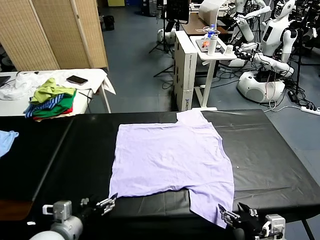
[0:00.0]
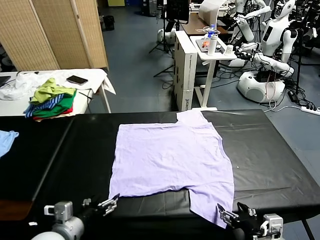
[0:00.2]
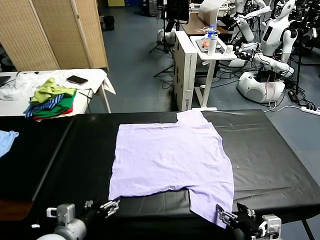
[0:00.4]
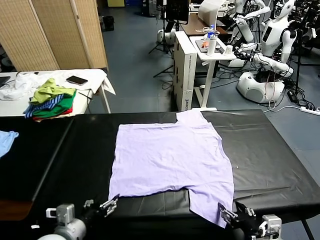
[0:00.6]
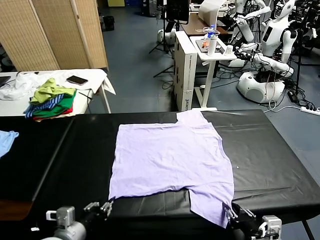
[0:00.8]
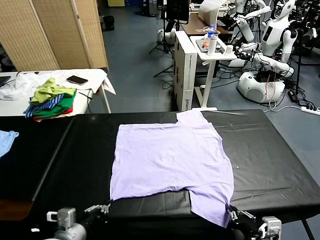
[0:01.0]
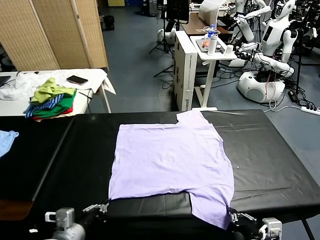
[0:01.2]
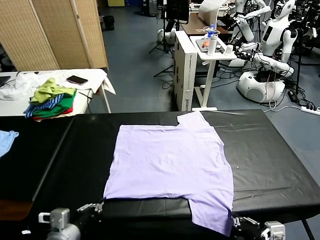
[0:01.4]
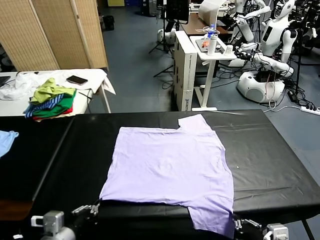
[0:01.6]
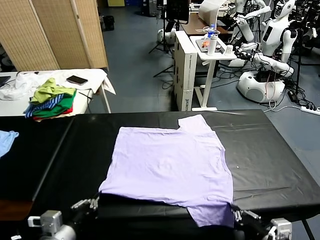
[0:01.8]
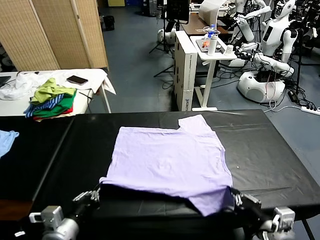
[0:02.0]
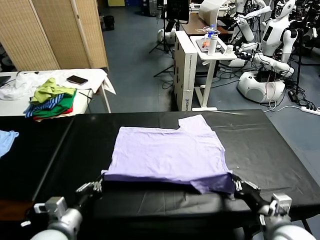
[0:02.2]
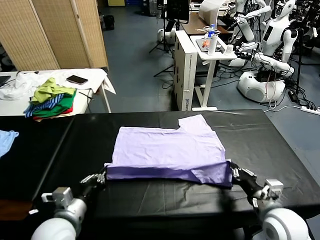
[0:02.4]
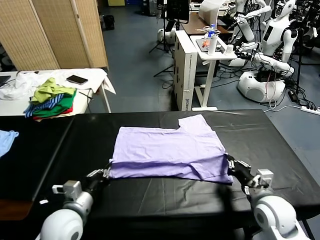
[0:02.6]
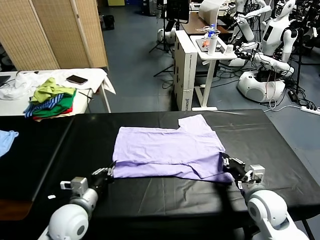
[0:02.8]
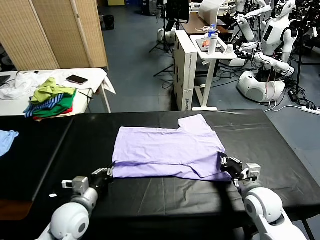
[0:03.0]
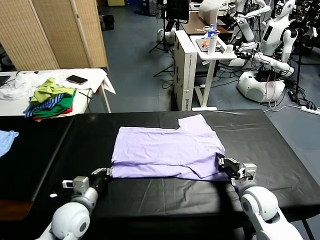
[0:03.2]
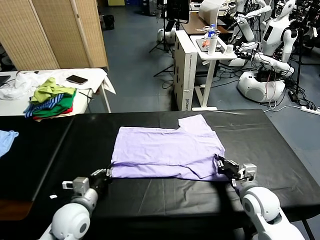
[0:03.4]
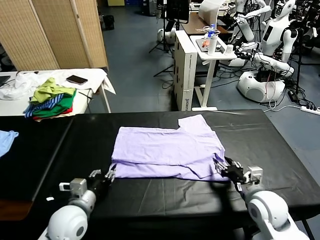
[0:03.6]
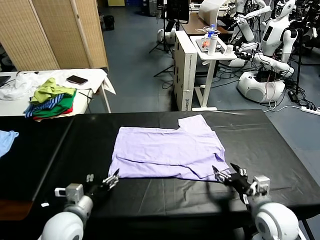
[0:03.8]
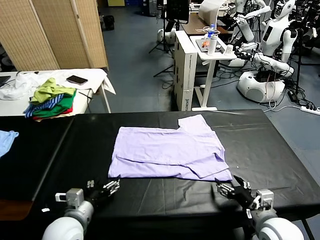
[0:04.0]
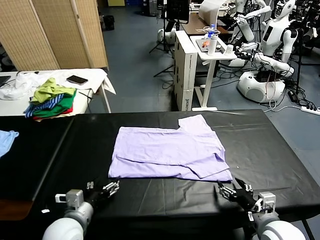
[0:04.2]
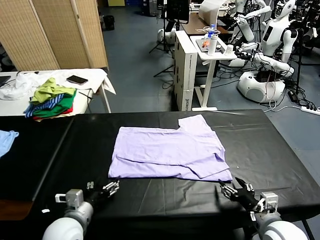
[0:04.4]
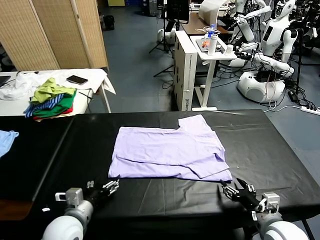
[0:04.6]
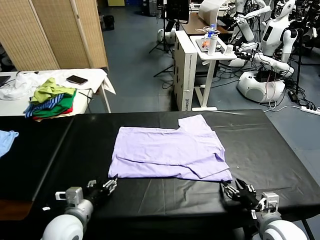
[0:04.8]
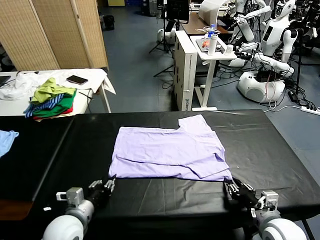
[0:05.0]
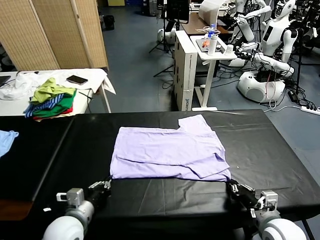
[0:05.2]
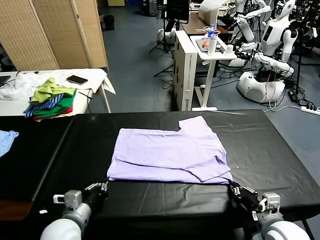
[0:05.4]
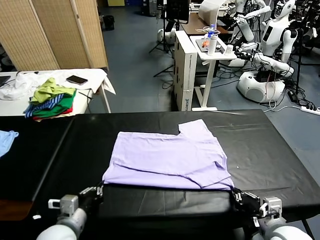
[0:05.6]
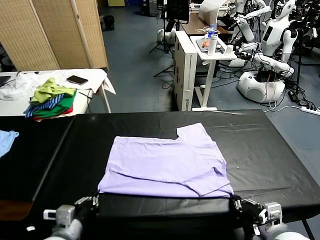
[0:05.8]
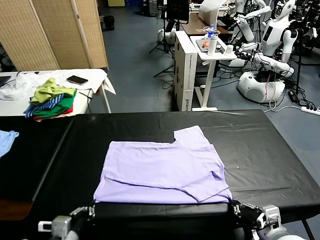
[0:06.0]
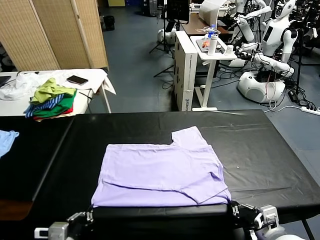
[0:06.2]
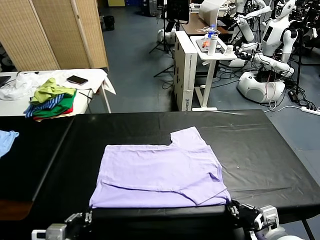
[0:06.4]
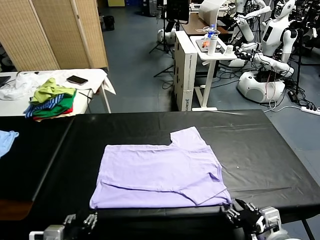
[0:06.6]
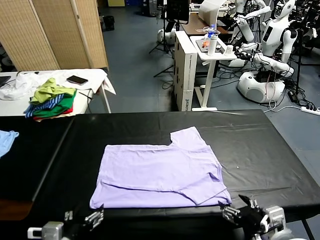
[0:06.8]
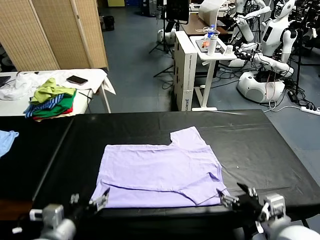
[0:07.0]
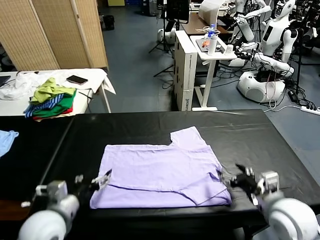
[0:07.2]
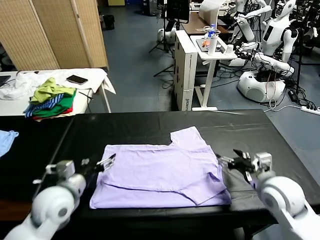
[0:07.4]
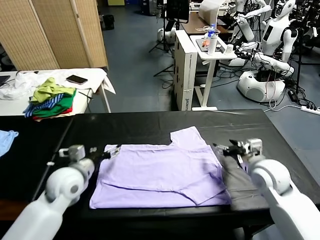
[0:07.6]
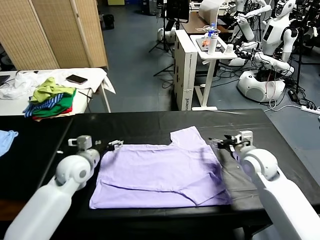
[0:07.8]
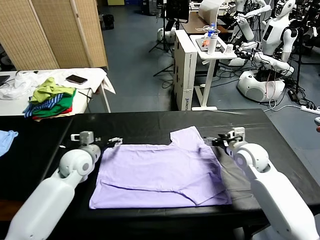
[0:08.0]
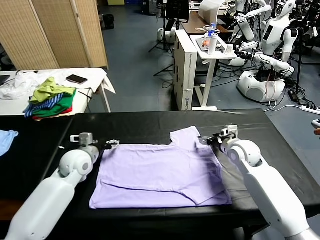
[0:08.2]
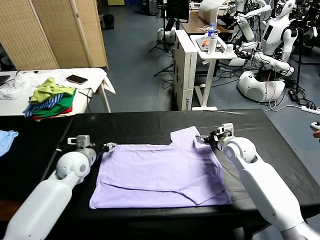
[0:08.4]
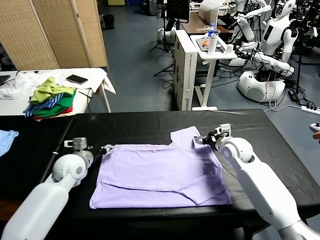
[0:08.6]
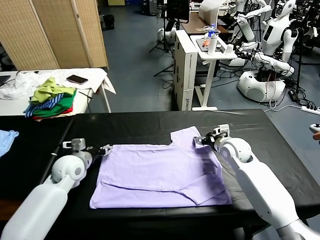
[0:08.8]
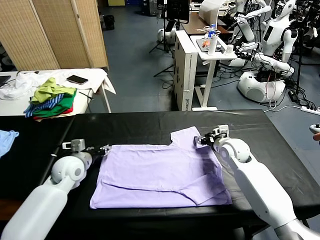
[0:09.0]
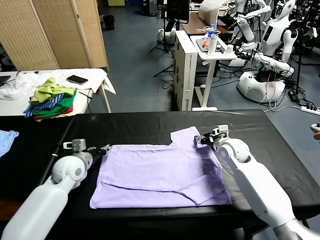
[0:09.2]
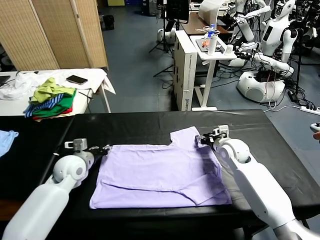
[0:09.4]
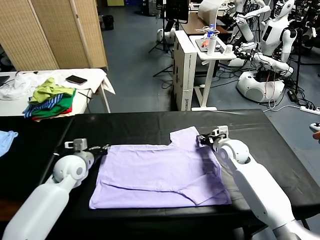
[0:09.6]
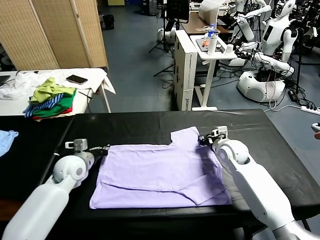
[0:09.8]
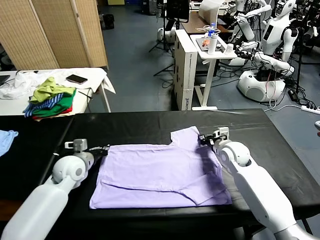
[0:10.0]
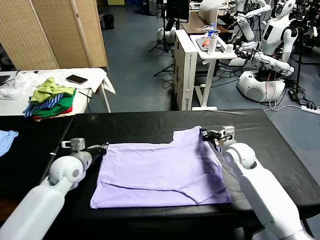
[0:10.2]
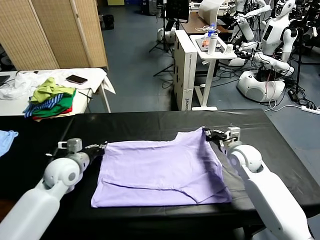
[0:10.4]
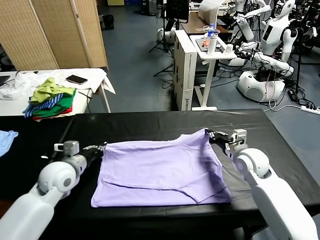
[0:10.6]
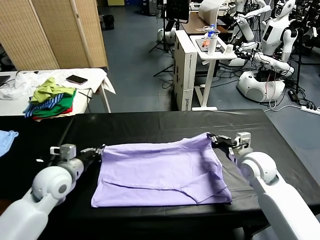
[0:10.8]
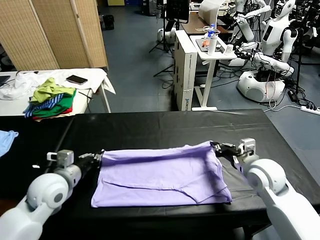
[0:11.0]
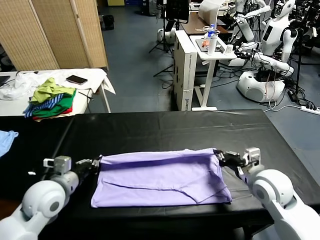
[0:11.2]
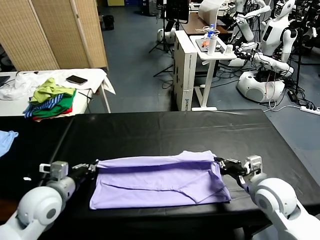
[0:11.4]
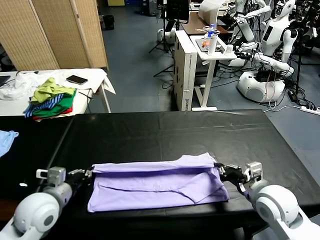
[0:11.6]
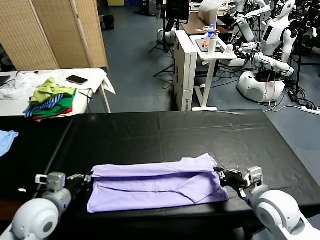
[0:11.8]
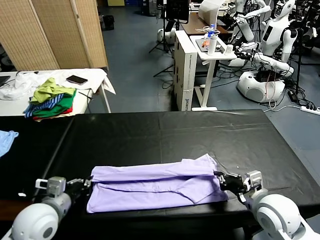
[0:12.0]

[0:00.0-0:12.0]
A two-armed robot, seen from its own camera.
Task of the whole recording: fold and organize the clothes.
Step, 0.0 to 1.2 s: use both grippers simultaneously to clamp the lower edge of the clothing fabric.
Step, 1.4 to 3.6 s: use both grippers to drag the lower edge of the fabric forward and fold it over the upper edge.
Step, 3.8 to 6.6 s: Drag the clothes downward with both gripper.
Step, 6.8 to 10.0 s: use both grippers simultaneously to clamp the upper edge of the clothing fabric.
1.6 to 3.0 s: The left gripper travels forward and downward by about 15 cm, while the right gripper is displaced forward by about 20 cm.
3.0 to 4.4 s: The right gripper goes roughly 10 cm backward, and opens, while the left gripper opens its fingers.
4.4 to 6.0 s: The right gripper shifts by approximately 5 cm, and closes up, while the left gripper is displaced backward by about 10 cm, and closes up.
6.0 to 7.6 s: Both grippers move forward, some 25 cm. The right gripper opens, while the left gripper opens its fingers.
7.6 to 9.0 s: The right gripper goes roughly 10 cm forward and downward. Meanwhile the left gripper changes place by roughly 5 cm.
9.0 to 10.4 s: The right gripper moves backward, some 5 cm, and closes its fingers. Meanwhile the left gripper ends up approximately 5 cm from where it was, and closes up.
10.4 to 12.0 s: The grippers both shift backward by about 15 cm.

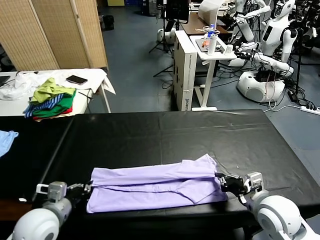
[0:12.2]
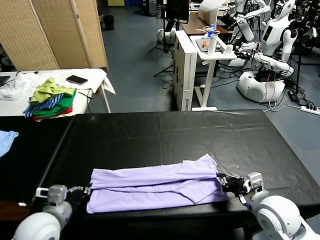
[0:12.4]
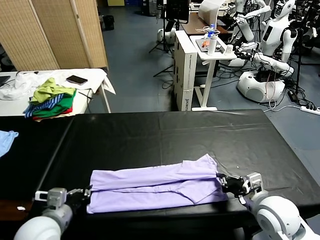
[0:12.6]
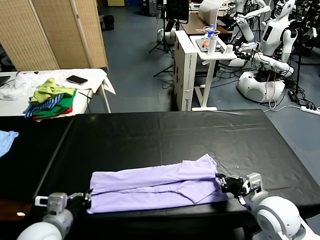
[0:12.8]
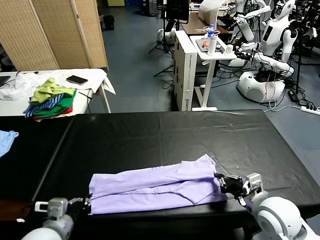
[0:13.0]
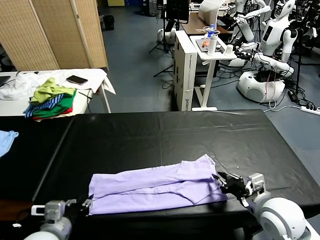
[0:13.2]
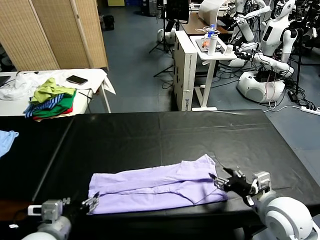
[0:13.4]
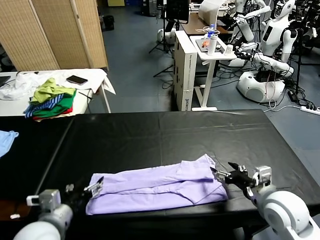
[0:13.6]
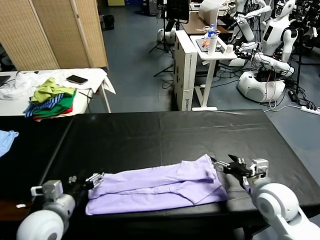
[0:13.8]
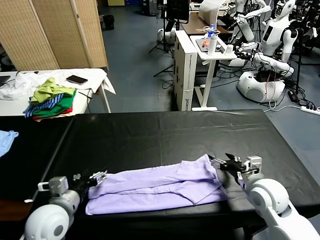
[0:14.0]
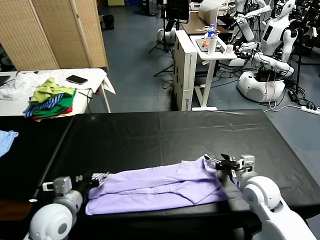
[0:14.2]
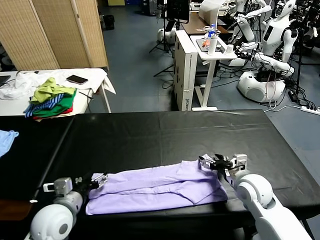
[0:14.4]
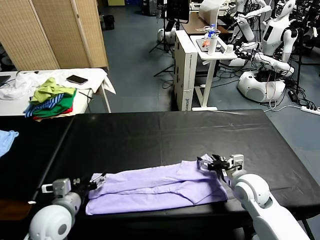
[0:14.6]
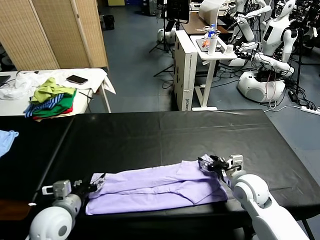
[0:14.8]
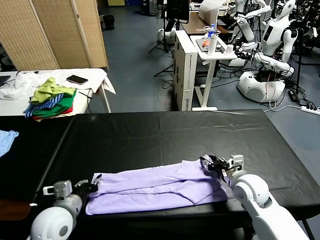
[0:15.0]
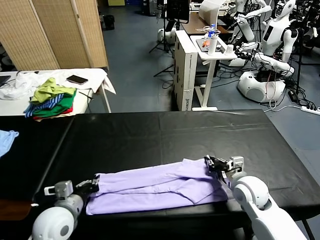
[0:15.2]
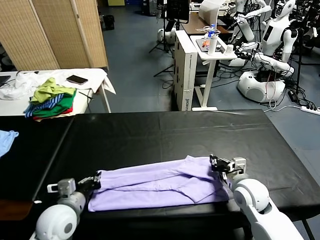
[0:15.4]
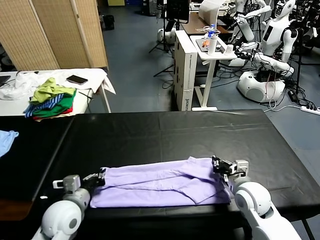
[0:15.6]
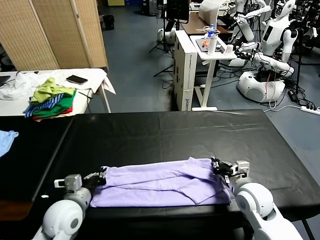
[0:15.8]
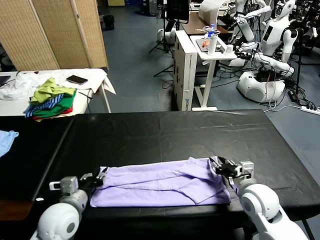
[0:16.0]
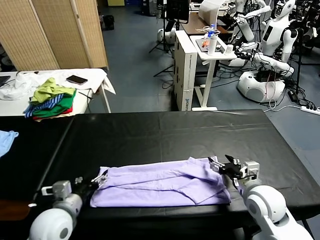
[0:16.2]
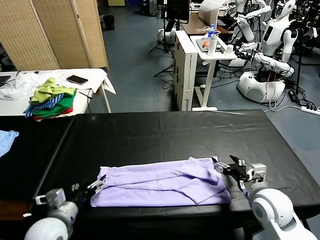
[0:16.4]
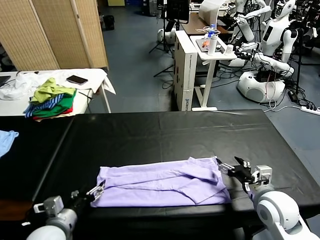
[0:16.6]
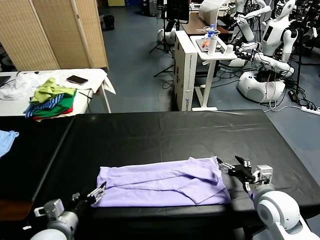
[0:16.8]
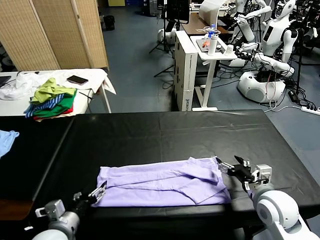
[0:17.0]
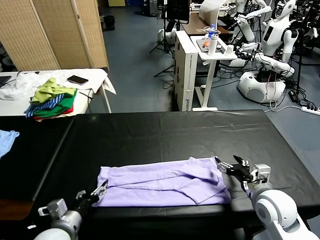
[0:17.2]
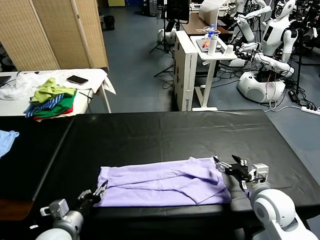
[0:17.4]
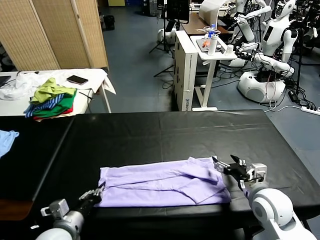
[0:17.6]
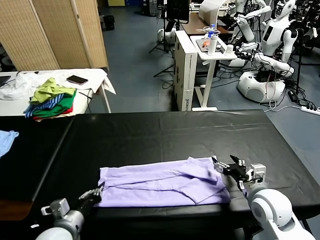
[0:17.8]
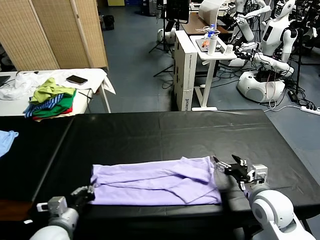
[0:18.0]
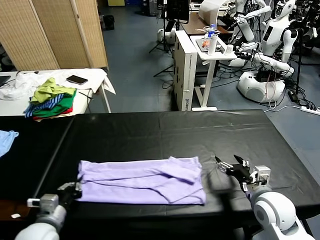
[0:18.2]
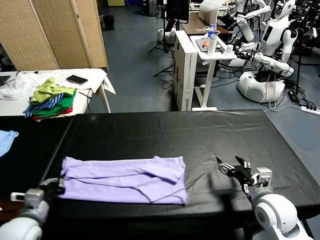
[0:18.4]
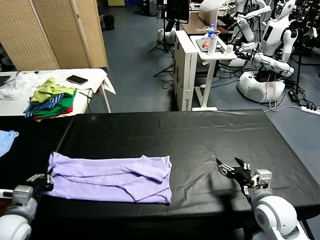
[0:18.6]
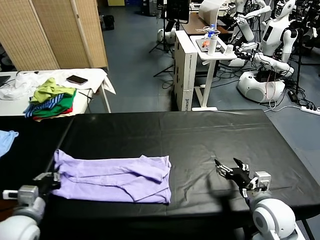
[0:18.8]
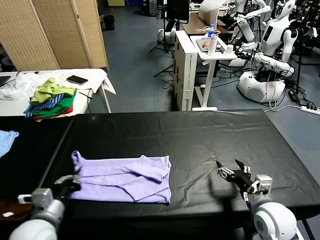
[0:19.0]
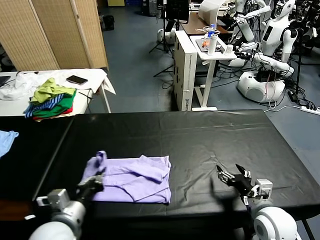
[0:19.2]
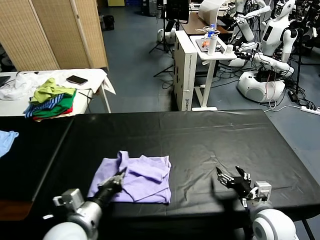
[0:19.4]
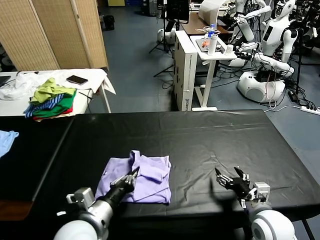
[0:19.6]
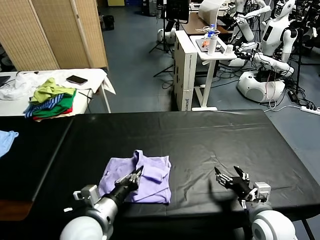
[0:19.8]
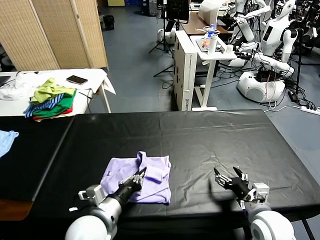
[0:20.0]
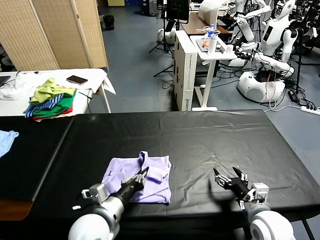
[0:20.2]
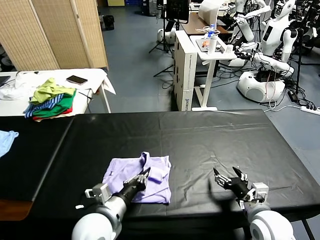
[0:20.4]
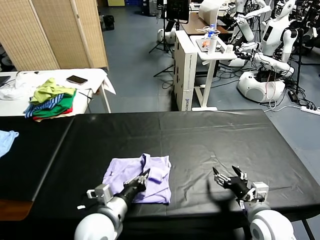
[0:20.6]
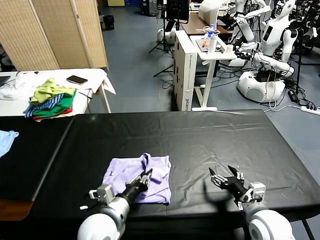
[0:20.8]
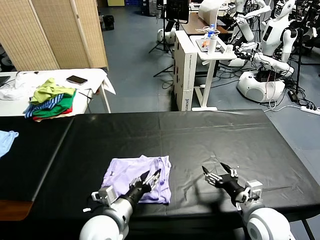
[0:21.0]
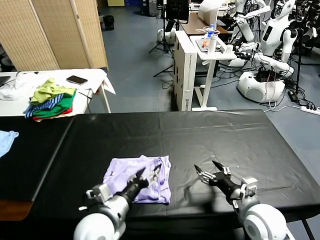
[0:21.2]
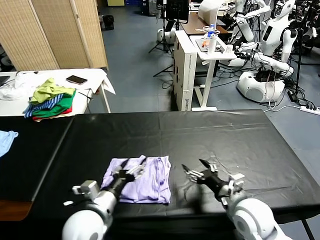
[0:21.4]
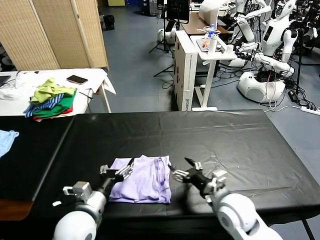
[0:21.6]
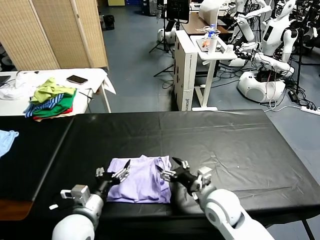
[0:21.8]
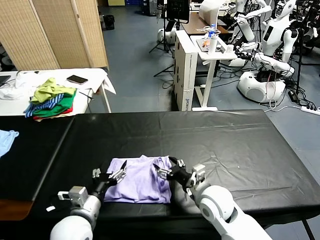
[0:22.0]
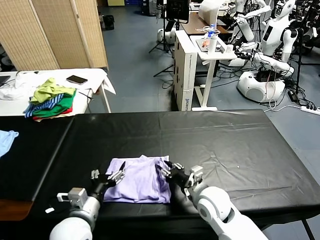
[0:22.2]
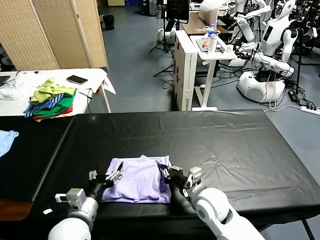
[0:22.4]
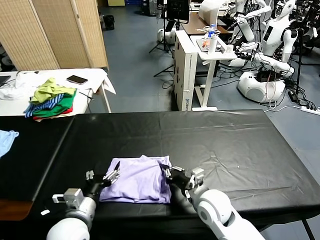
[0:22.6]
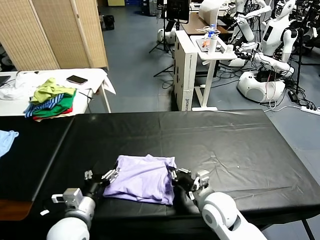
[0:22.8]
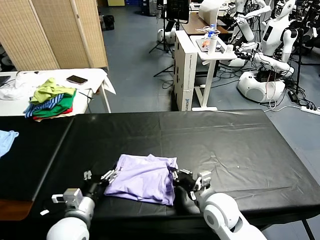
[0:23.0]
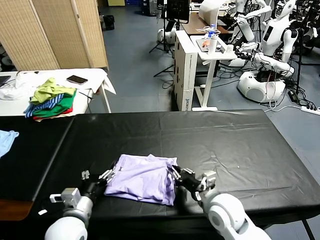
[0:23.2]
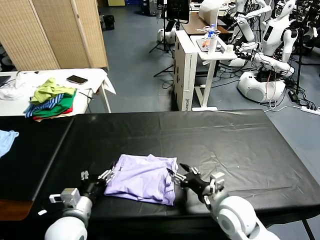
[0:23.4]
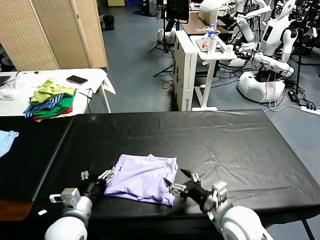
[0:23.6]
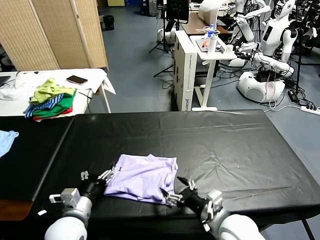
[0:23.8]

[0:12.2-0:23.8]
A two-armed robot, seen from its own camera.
Task of the whole recording: fold and organize the clothes.
Step, 13.6 to 17.8 s: use the left gripper to clamp the left edge of the fabric.
Step, 18.0 to 21.2 s: use the left gripper to drag the left edge of the fabric to the left and folds it over the right edge.
12.2 to 13.6 s: The right gripper opens up; the left gripper opens its fingers.
13.6 to 15.0 s: The left gripper moves roughly 5 cm, and closes up; the right gripper is displaced downward and forward by some 10 cm, and closes up.
15.0 to 16.6 s: The right gripper travels backward by some 5 cm, and opens its fingers, while the left gripper opens.
16.6 to 18.0 s: The left gripper closes up.
18.0 to 19.4 s: The left gripper heads to the right and upward, covering roughly 10 cm.
19.4 to 21.0 s: The left gripper moves to the right, some 5 cm, and opens.
21.0 to 22.4 s: The left gripper heads to the left, covering approximately 10 cm, while the right gripper moves to the left and forward, roughly 15 cm, and closes up.
22.4 to 23.8 s: The right gripper heads backward, covering approximately 10 cm, and opens.
